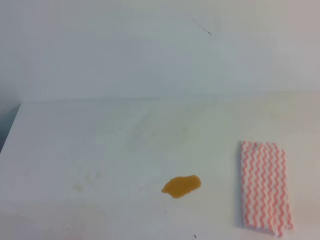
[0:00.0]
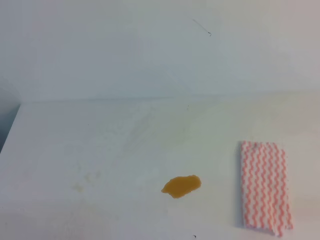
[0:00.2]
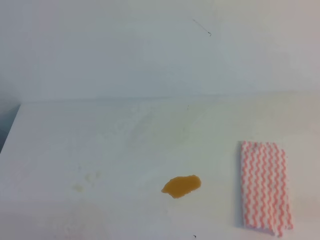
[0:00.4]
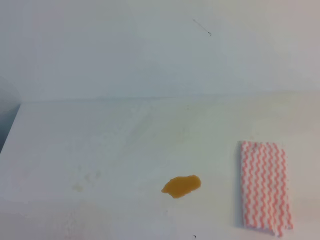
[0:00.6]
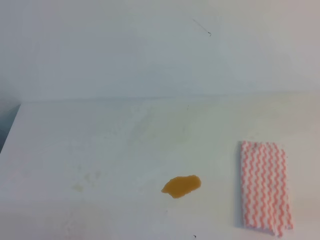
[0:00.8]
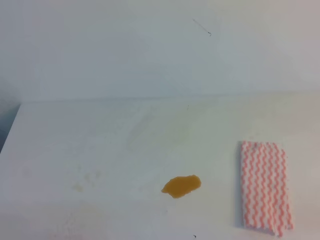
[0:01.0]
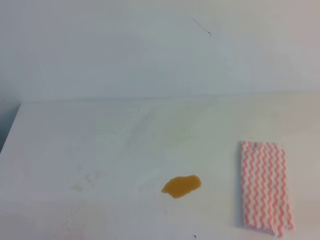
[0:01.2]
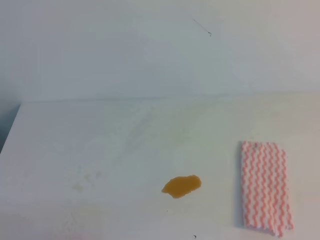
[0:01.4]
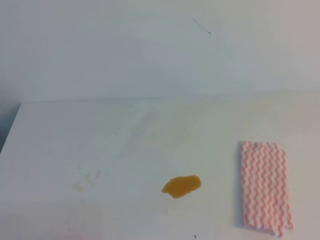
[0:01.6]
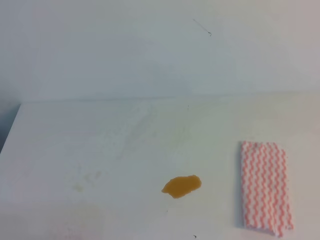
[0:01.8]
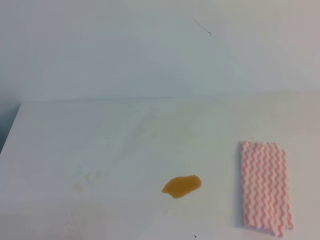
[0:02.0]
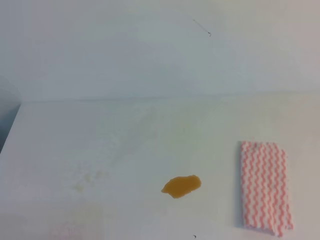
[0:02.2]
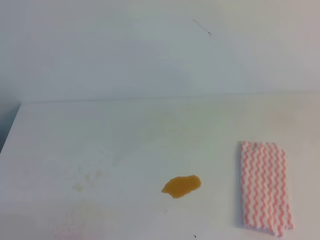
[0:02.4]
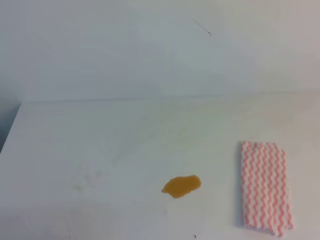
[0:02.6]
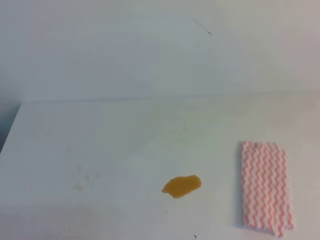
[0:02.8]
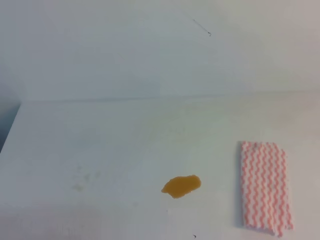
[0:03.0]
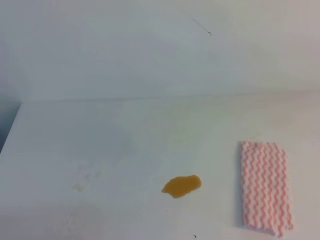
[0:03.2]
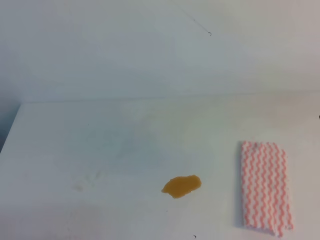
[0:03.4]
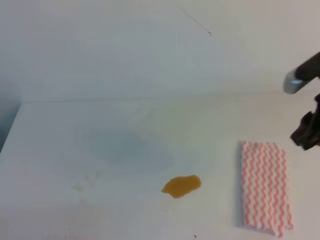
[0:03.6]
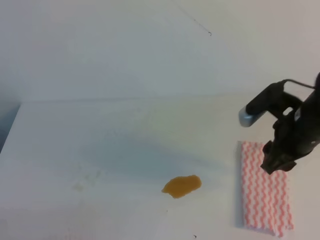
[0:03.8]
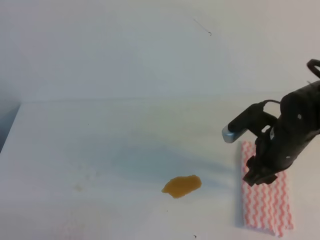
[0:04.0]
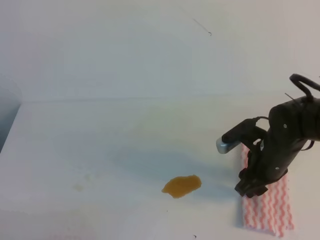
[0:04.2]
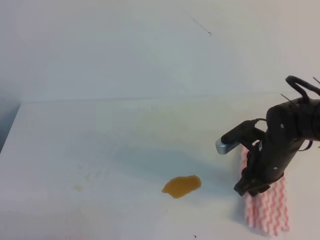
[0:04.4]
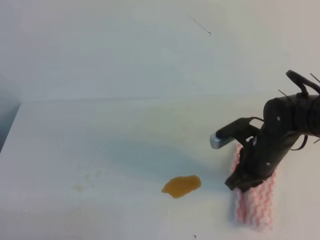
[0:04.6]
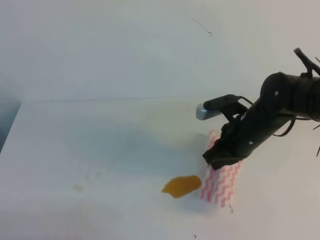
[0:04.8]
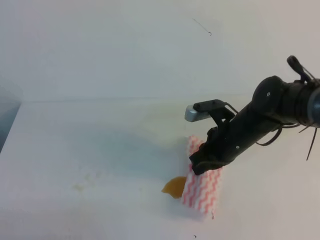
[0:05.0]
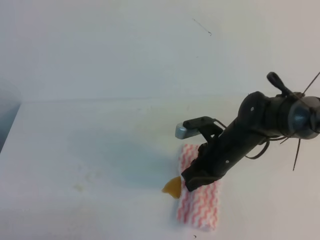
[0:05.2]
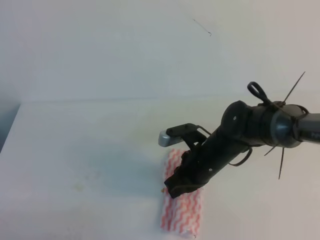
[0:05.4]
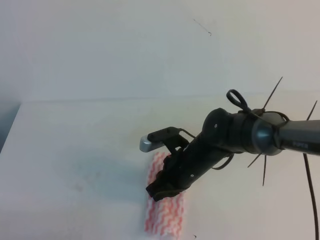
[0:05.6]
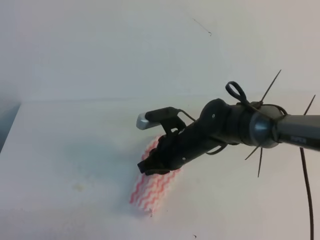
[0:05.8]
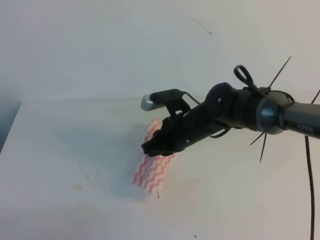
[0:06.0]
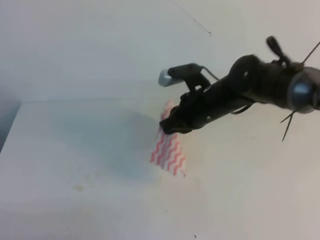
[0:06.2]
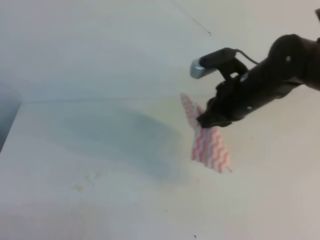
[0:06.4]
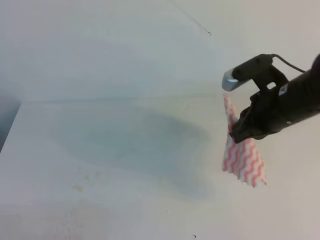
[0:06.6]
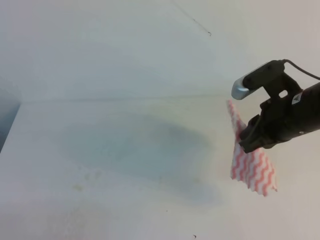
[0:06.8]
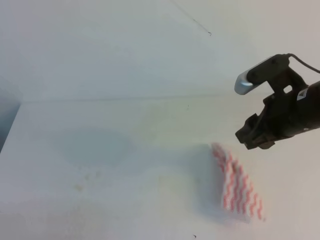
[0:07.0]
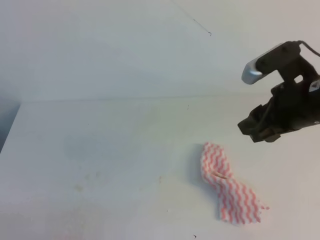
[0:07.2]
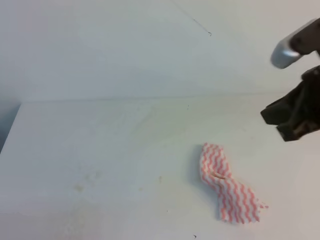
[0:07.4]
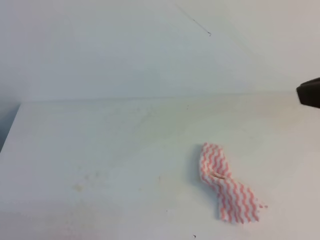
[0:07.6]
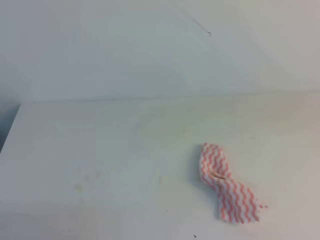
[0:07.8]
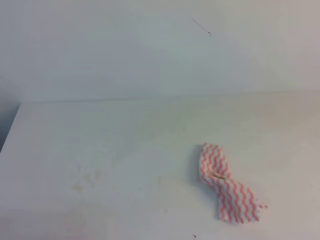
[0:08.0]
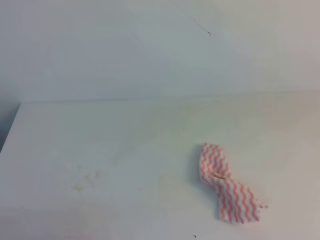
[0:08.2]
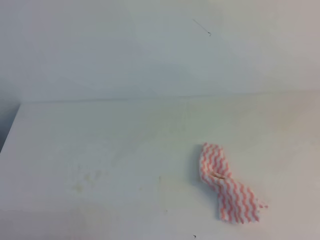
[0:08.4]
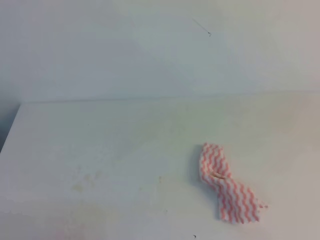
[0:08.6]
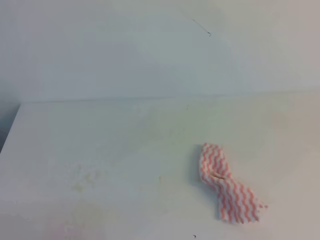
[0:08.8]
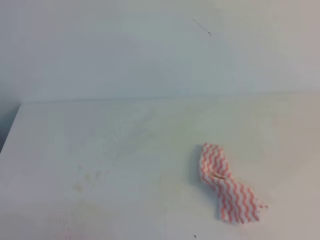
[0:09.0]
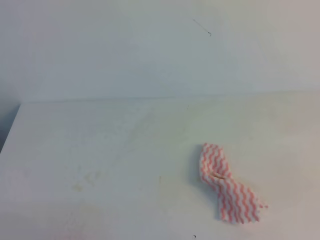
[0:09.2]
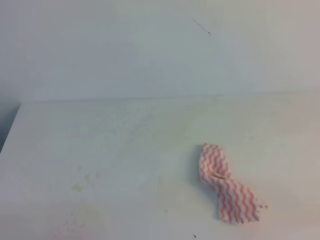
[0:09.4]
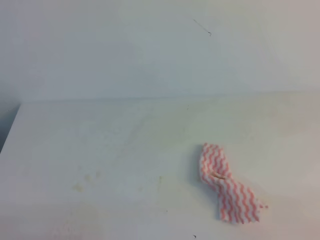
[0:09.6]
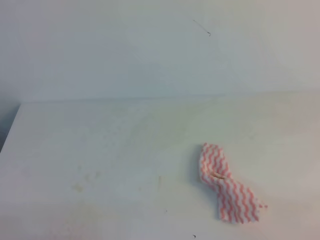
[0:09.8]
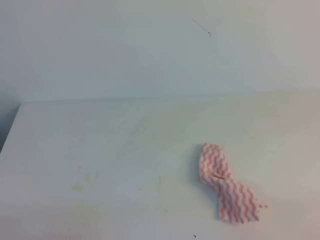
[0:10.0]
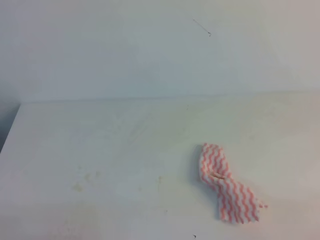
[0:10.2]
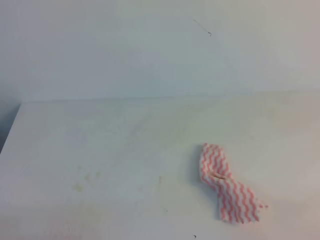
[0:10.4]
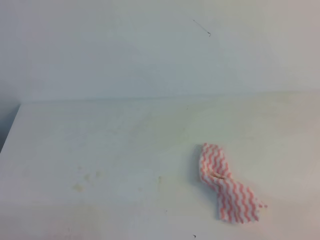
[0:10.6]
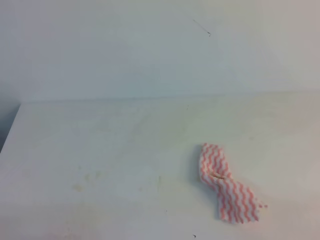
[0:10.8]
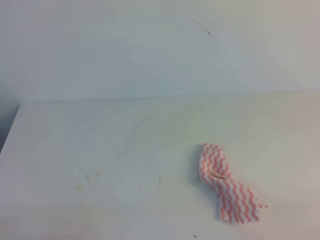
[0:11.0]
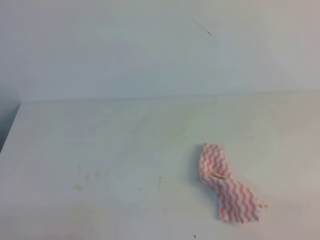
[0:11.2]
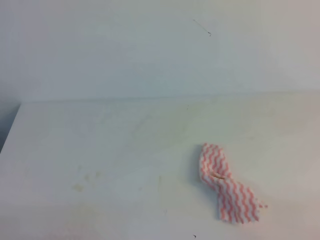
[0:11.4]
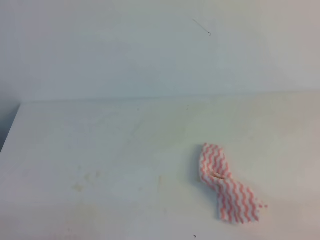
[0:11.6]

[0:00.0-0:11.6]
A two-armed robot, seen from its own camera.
0:02.8 to 0:04.4: The right gripper goes some 40 cm downward, forward and to the left, and opens up.
0:04.4 to 0:05.8: The right gripper goes approximately 15 cm to the left, and closes its fingers.
0:05.8 to 0:07.2: The right gripper is displaced upward and to the right by approximately 20 cm, and opens.
0:07.2 to 0:08.8: The right gripper heads backward, upward and to the right, covering some 30 cm, and closes its fingers.
0:10.2 to 0:11.6: The two grippers keep their place.
